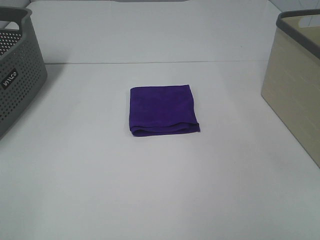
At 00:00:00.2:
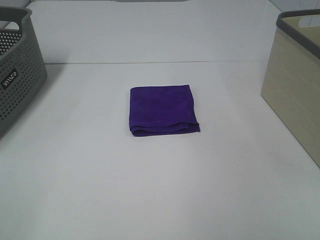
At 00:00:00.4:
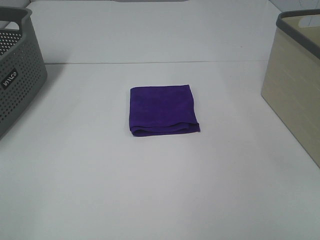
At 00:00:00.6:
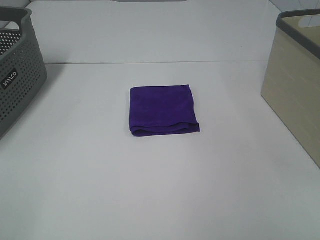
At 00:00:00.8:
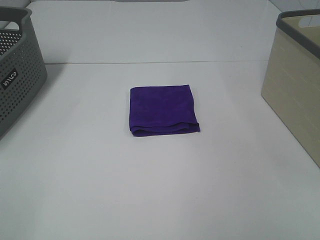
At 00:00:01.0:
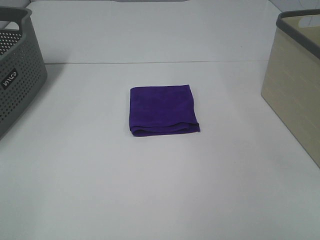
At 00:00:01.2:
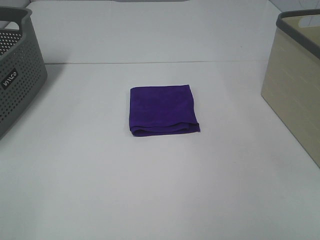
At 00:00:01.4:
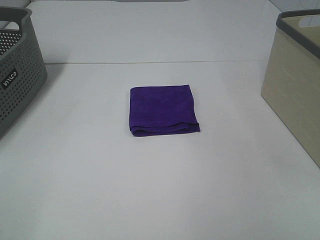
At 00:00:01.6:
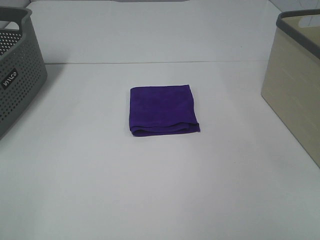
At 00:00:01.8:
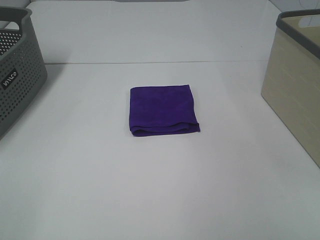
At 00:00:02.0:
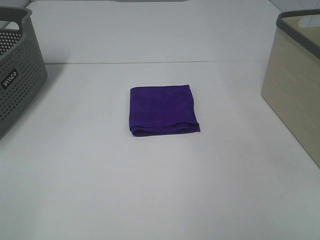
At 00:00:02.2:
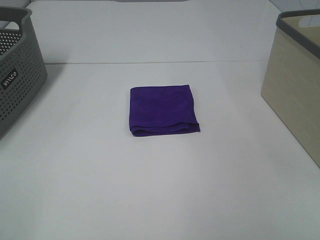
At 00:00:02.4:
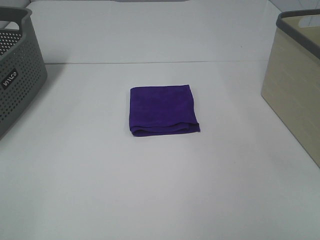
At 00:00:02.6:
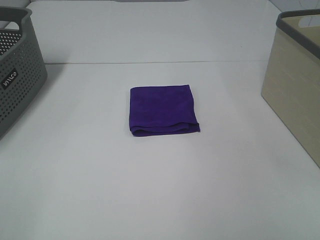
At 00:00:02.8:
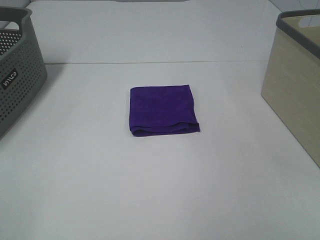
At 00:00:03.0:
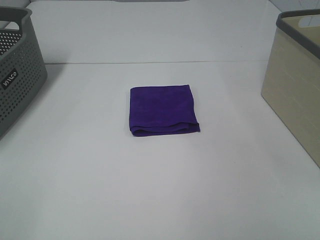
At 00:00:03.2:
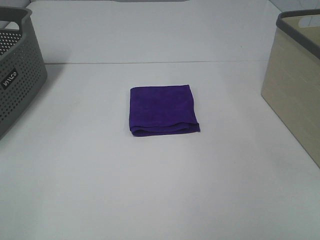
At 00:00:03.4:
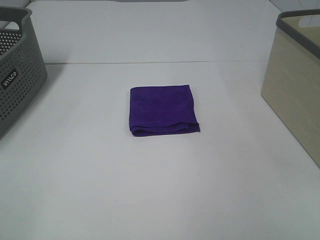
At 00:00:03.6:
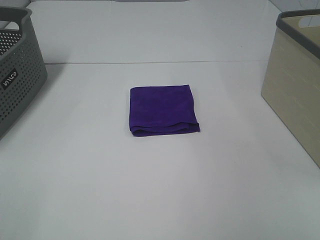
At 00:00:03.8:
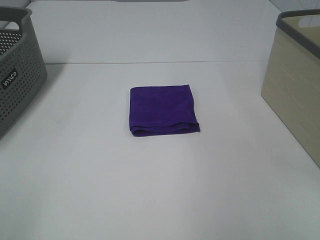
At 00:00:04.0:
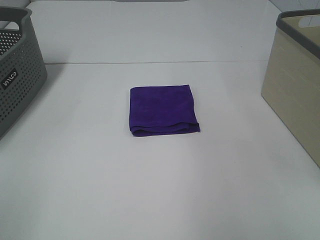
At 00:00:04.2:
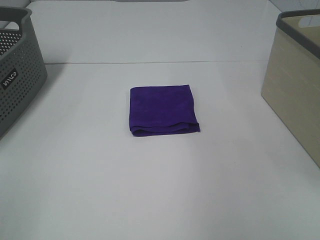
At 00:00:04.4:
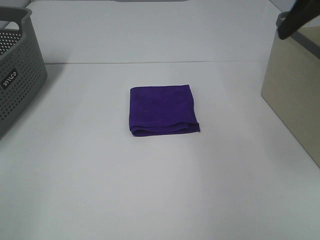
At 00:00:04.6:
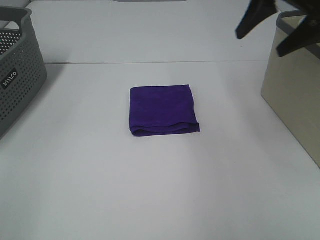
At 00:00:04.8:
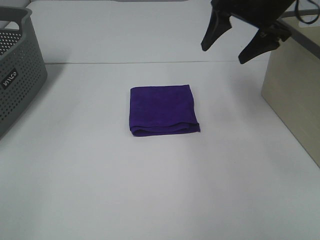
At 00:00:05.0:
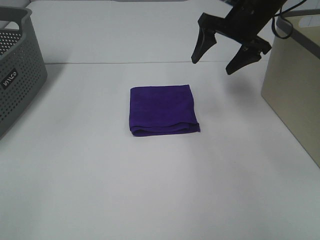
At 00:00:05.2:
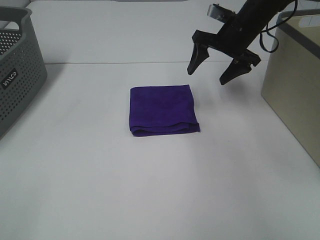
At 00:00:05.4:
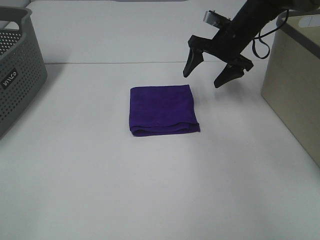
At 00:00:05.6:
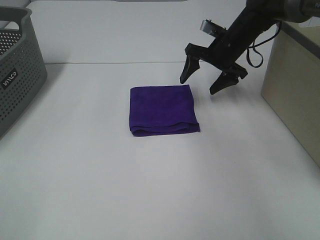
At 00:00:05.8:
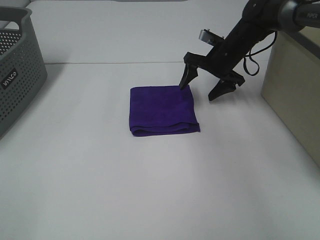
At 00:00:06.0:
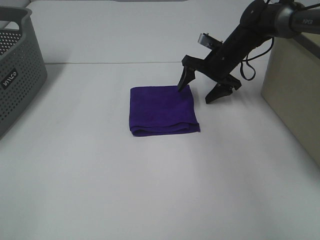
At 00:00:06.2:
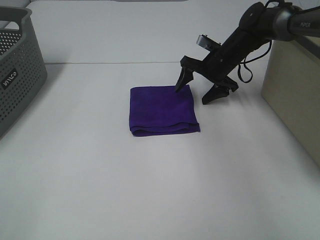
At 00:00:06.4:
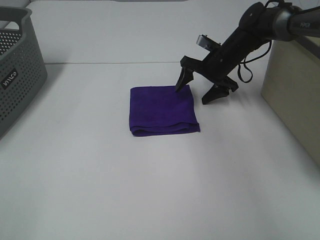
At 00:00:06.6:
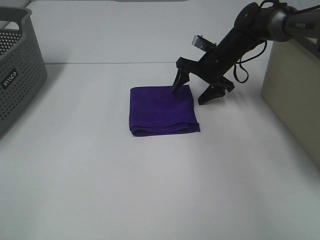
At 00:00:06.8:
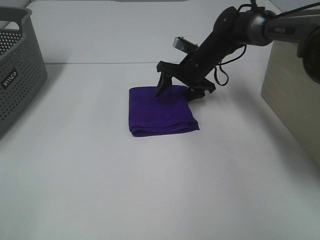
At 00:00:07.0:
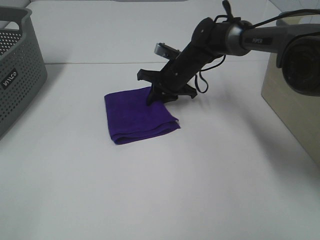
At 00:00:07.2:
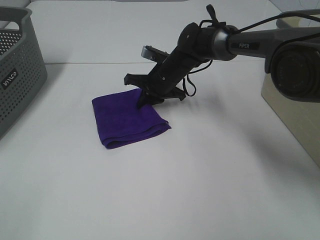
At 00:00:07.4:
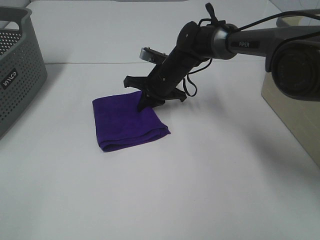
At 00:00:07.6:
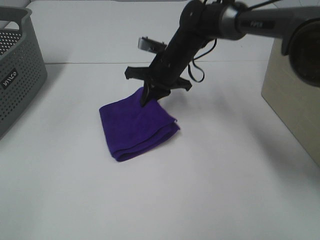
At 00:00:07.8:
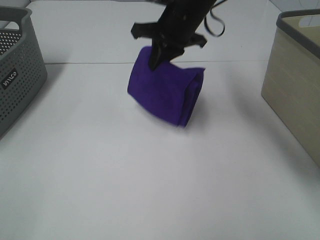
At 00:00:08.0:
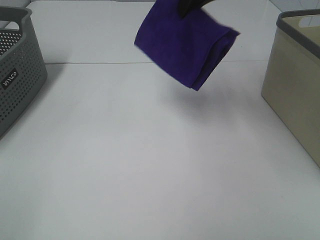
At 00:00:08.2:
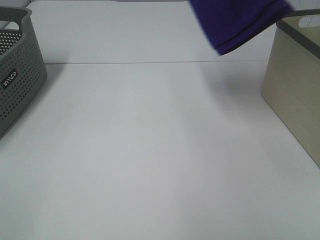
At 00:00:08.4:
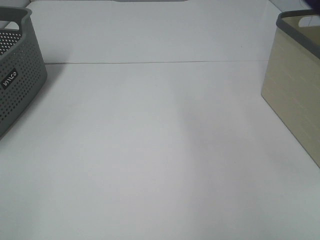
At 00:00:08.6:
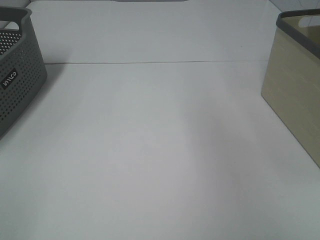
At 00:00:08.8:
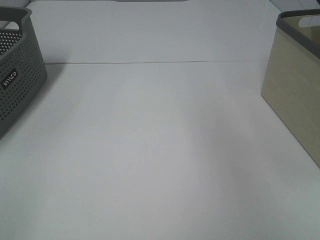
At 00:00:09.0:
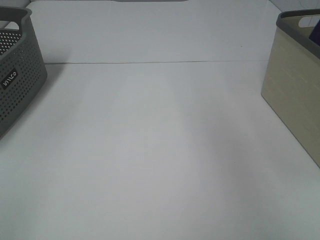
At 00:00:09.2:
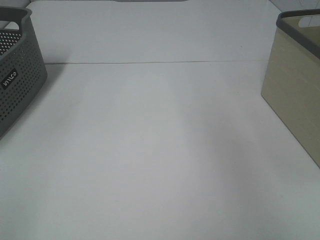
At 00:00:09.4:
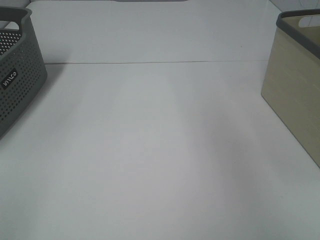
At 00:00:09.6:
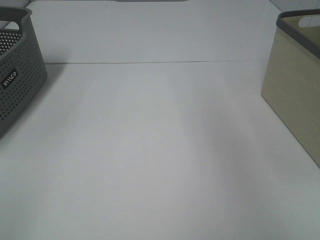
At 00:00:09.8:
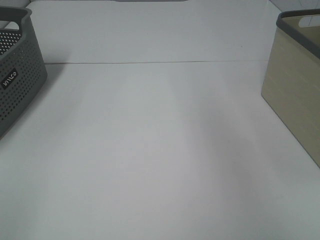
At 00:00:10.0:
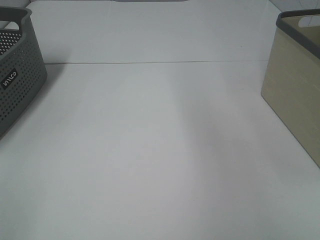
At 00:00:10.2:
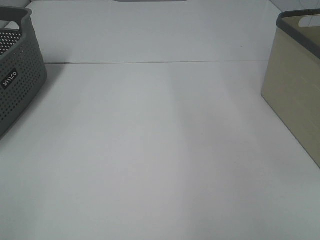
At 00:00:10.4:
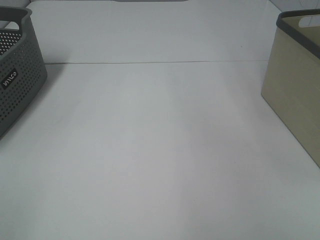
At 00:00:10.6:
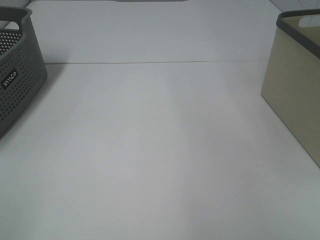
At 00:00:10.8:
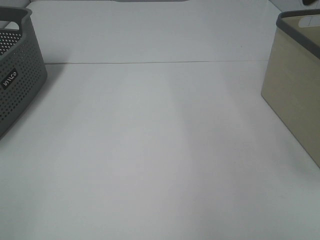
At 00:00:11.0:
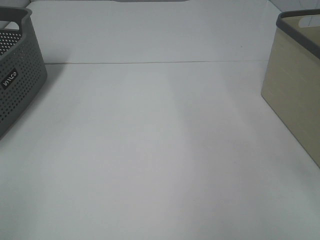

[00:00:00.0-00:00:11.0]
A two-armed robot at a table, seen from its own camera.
Step, 00:00:00.0 to 00:00:07.0: Right hand: grab the folded purple towel.
Step, 00:00:07.2 to 00:00:09.2: Right hand: place the purple towel in right basket.
00:00:00.0 to 00:00:03.2: Neither gripper changes place.
00:00:03.2 to 00:00:04.8: The right gripper travels forward by approximately 40 cm.
00:00:04.8 to 00:00:06.2: The right gripper goes approximately 20 cm downward and forward.
00:00:06.2 to 00:00:07.8: The right gripper goes some 20 cm upward, to the left and backward, and closes its fingers.
00:00:07.8 to 00:00:09.4: The right gripper travels to the right and upward by roughly 30 cm, and opens up.

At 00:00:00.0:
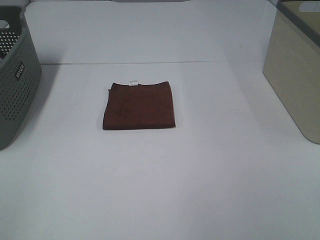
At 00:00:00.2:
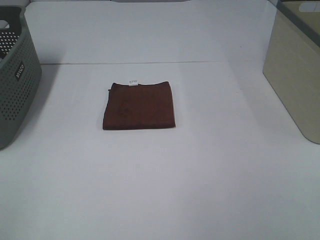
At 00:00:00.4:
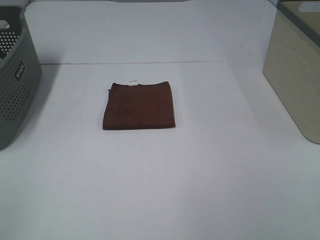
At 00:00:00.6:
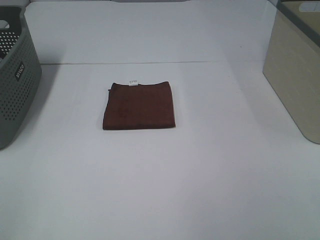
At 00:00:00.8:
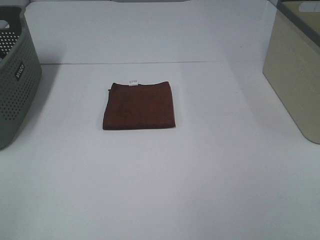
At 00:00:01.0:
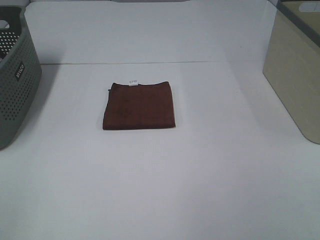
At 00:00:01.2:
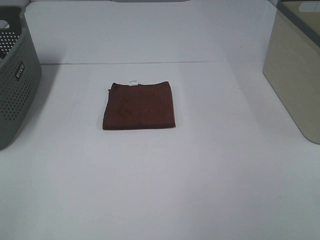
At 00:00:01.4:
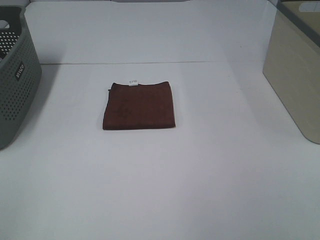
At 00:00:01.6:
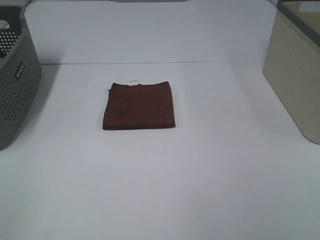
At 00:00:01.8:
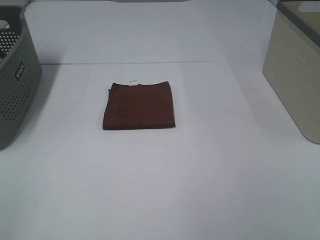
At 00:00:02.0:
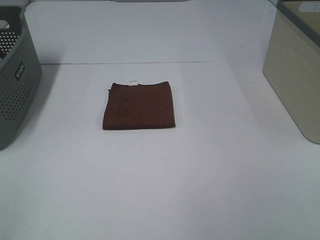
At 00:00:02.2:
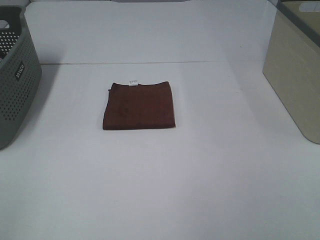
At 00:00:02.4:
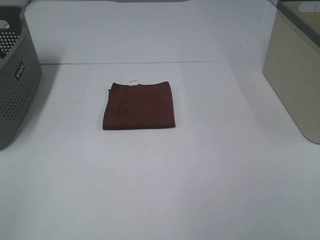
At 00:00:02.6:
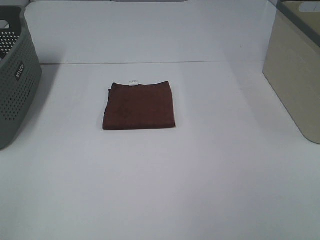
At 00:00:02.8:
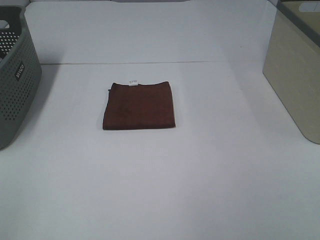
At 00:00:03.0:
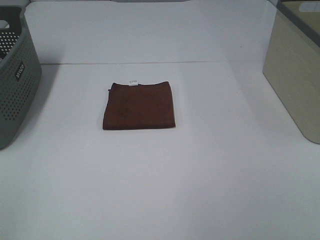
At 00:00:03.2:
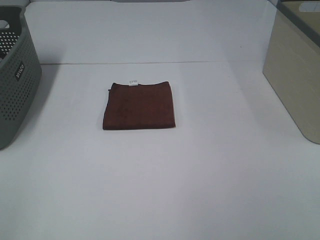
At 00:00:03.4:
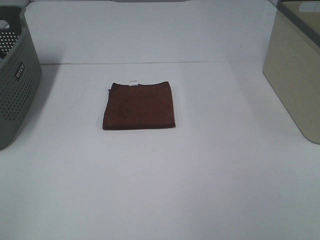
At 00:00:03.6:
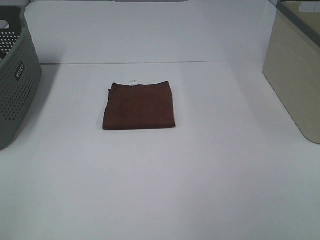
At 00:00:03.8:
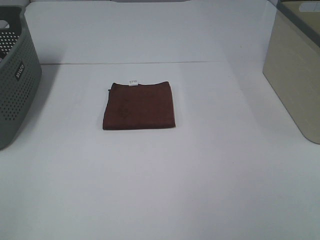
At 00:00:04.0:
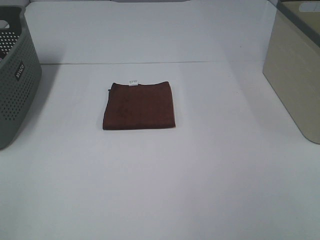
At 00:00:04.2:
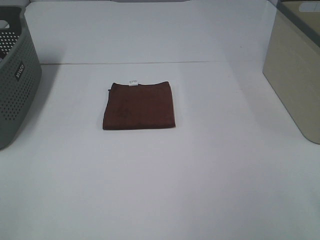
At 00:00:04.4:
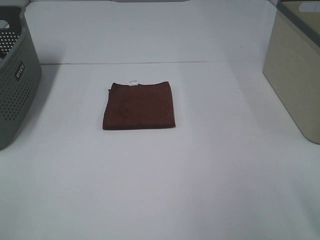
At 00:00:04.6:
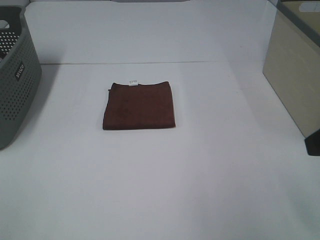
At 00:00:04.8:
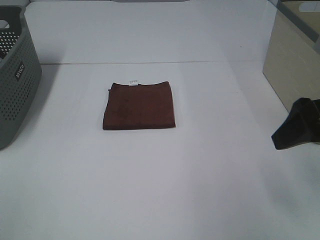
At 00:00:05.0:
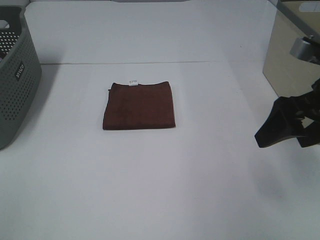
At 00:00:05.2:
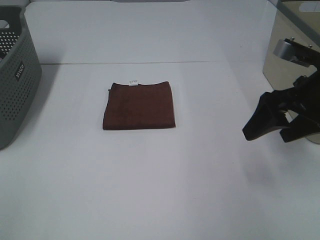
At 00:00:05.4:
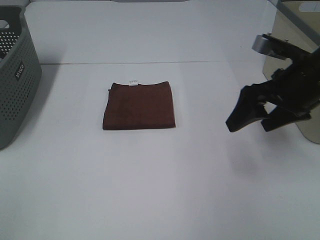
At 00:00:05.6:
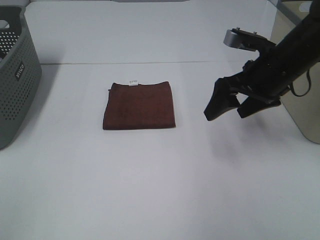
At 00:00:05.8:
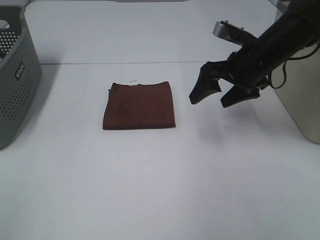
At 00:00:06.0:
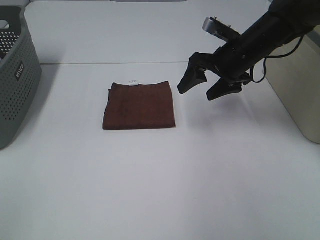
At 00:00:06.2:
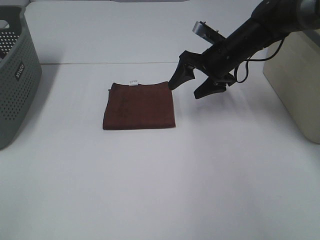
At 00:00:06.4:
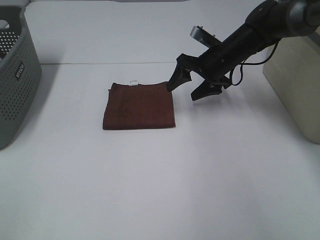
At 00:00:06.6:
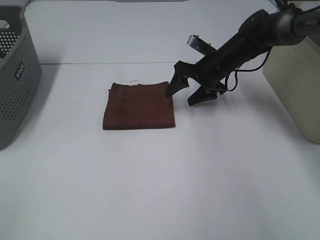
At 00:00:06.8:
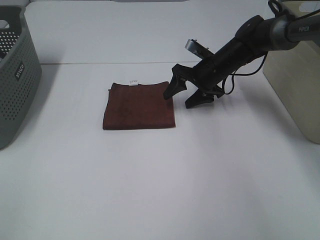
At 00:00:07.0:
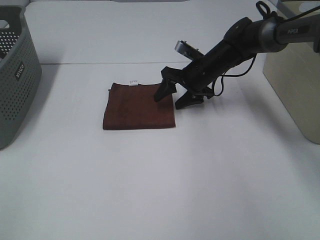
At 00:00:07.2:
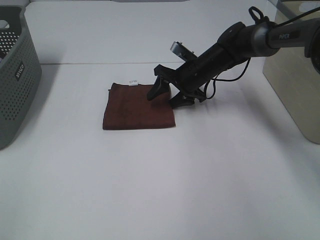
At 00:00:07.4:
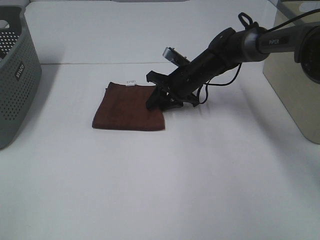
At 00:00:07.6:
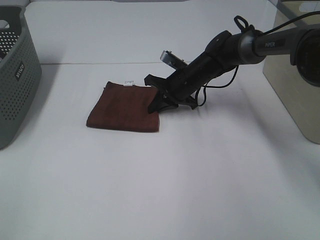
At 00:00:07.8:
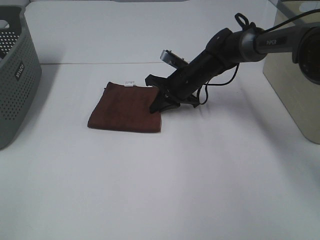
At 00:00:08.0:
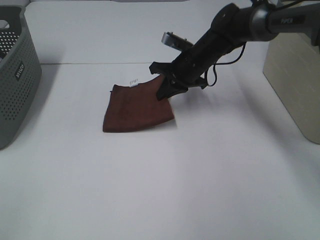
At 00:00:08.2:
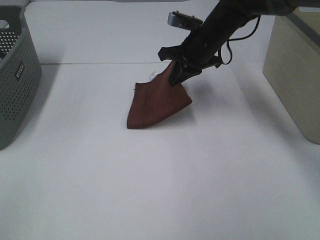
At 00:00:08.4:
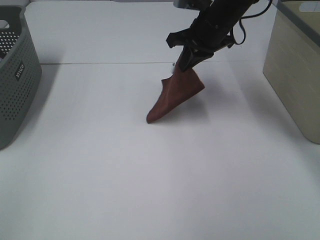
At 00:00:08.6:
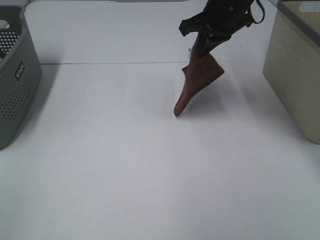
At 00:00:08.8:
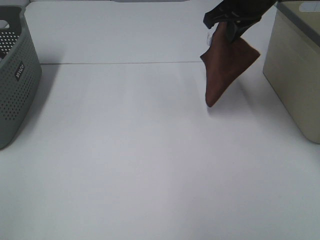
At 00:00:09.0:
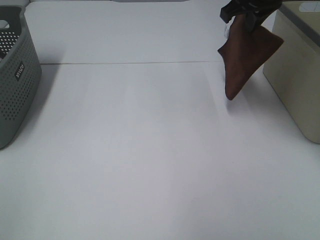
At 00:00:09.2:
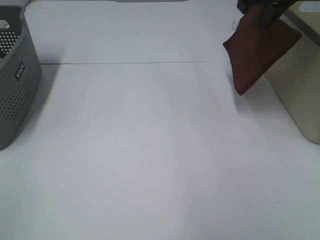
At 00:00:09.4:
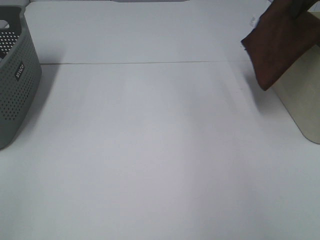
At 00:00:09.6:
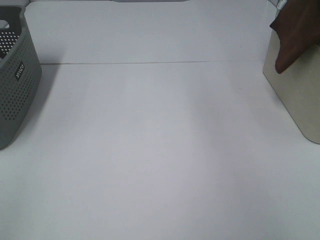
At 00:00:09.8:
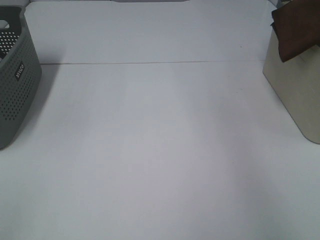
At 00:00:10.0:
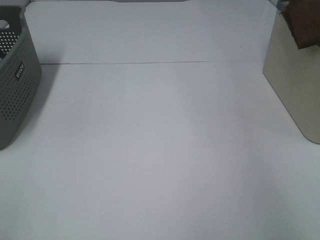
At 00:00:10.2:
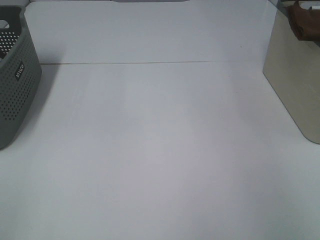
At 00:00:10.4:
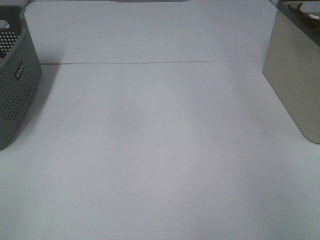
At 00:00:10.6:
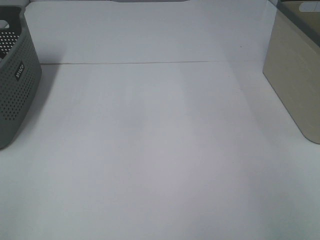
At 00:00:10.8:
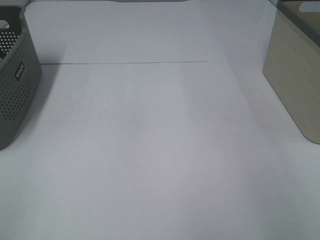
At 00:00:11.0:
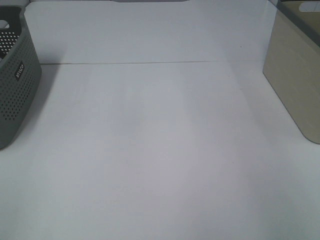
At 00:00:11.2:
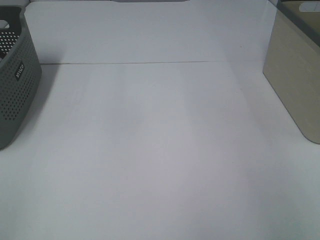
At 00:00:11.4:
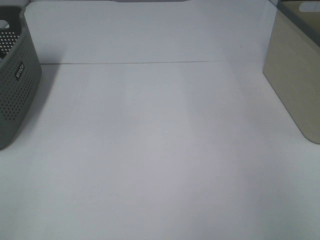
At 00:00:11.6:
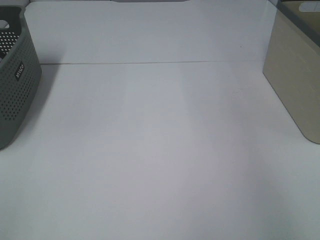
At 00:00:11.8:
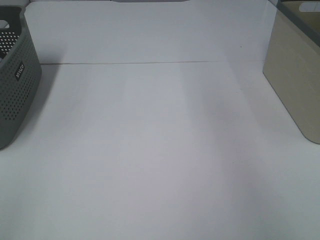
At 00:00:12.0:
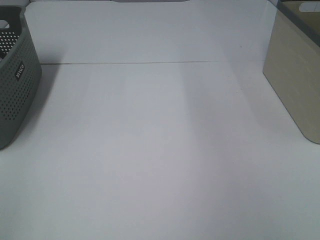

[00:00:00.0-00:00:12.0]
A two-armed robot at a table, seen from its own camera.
Step, 00:00:00.0 to 00:00:07.6: Right hand: grab the folded brown towel.
Step, 00:00:07.8 to 00:00:10.8: Right hand: place the brown towel in right basket.
00:00:00.0 to 00:00:03.0: Neither gripper changes place.
00:00:04.4 to 00:00:06.0: The right gripper is displaced forward by roughly 30 cm.
00:00:06.0 to 00:00:07.6: The right gripper goes some 15 cm downward, to the left and forward, and closes up.
00:00:07.6 to 00:00:09.0: The right gripper moves upward, approximately 25 cm.
00:00:09.0 to 00:00:10.4: The right gripper shifts about 25 cm to the right.
